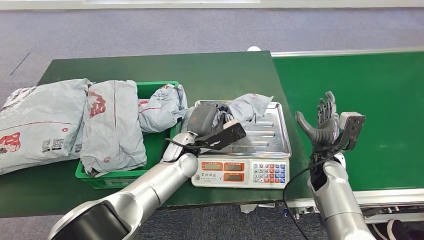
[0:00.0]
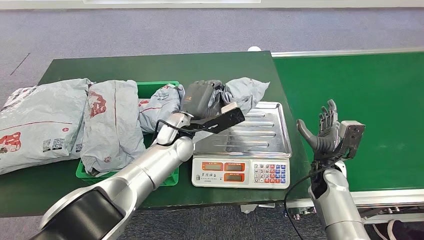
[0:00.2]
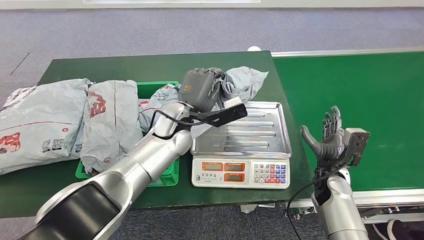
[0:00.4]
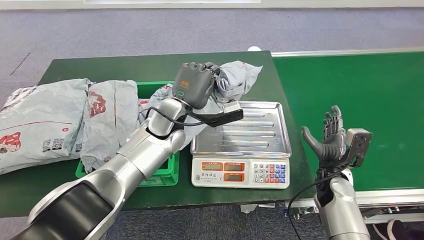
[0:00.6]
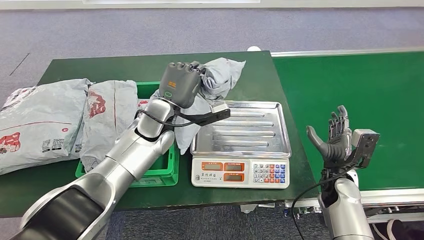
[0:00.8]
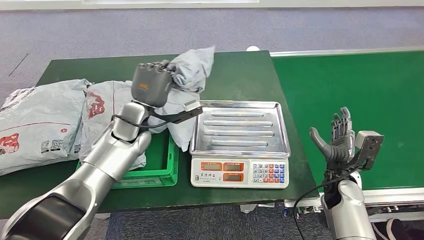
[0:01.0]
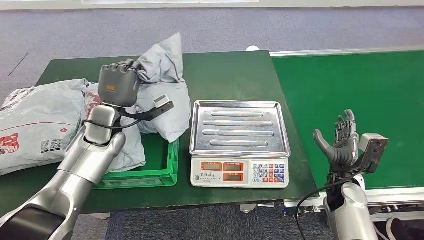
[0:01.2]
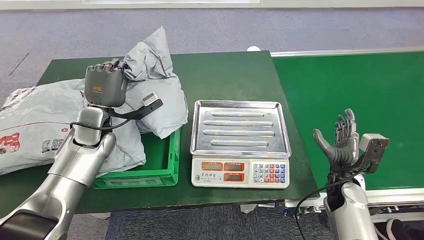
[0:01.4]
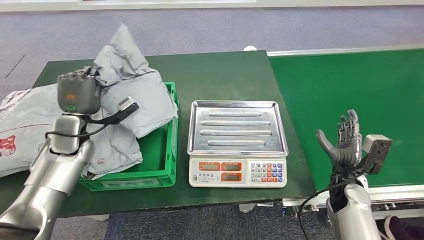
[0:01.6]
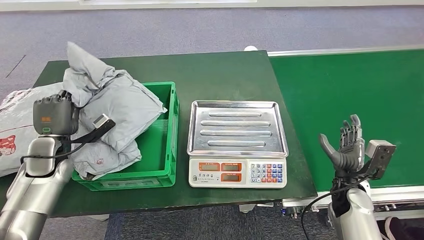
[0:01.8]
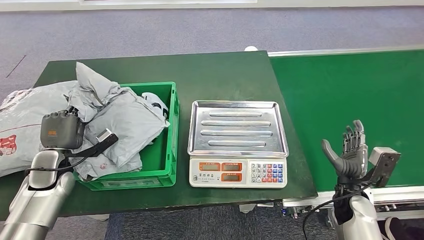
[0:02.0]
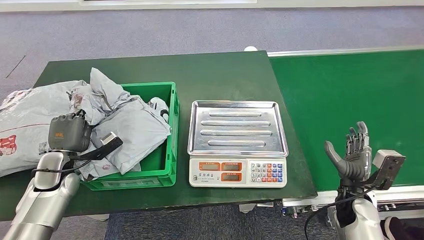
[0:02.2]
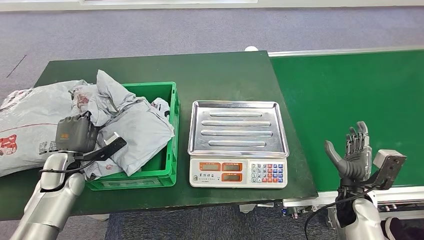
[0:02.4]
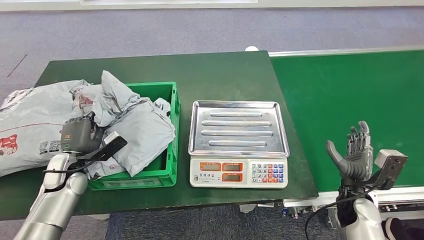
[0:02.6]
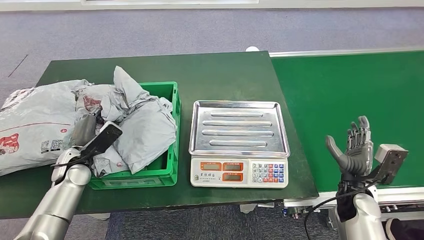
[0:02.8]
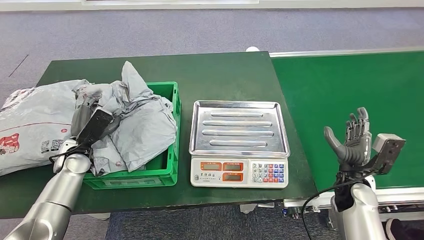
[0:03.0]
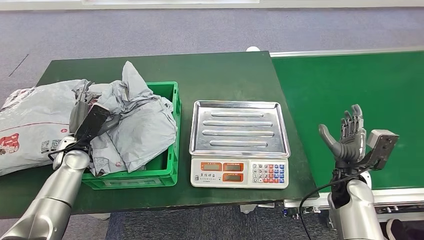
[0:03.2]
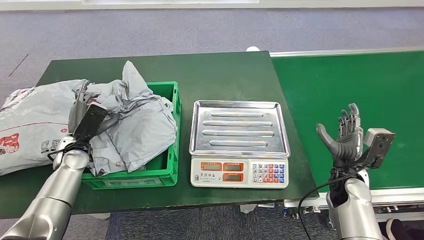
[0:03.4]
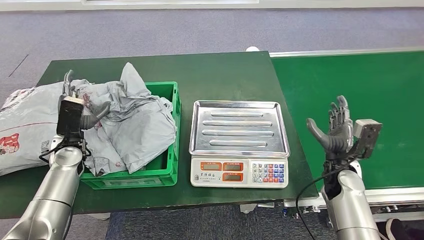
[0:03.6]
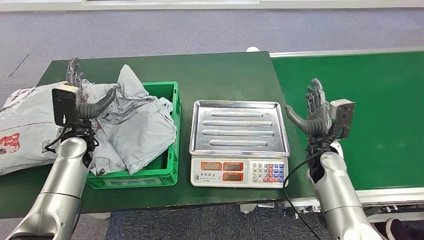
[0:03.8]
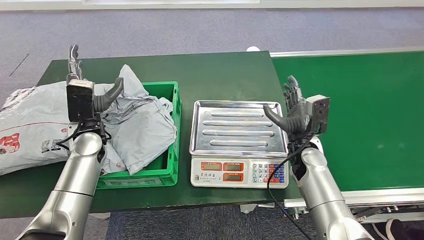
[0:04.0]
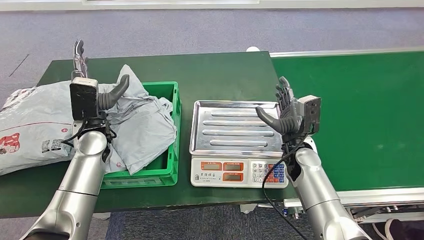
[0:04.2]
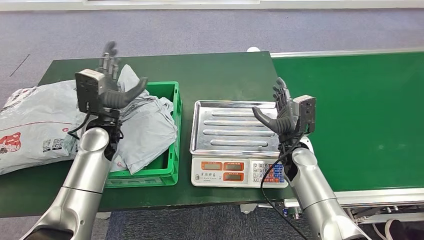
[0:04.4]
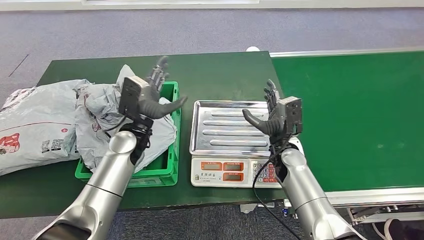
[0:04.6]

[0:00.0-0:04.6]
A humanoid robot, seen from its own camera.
Step, 0:01.2 to 0:04.6: Place the parcel into the delivery box.

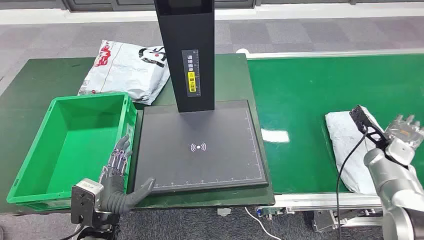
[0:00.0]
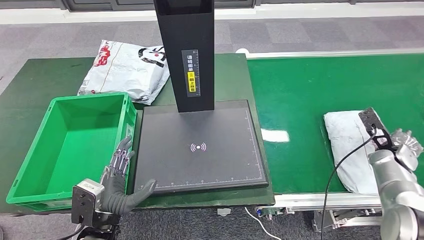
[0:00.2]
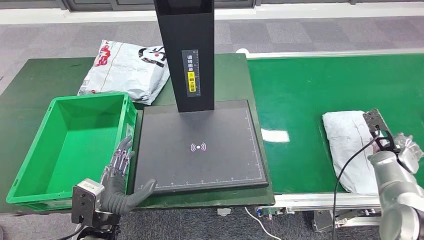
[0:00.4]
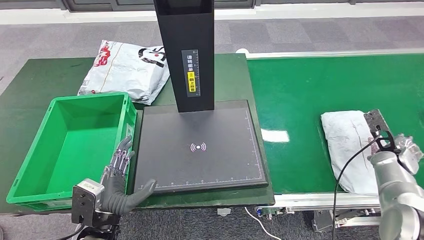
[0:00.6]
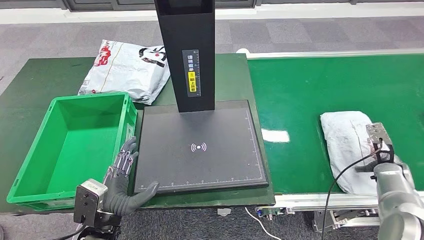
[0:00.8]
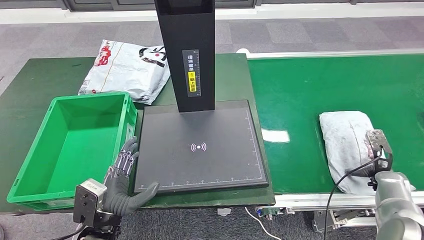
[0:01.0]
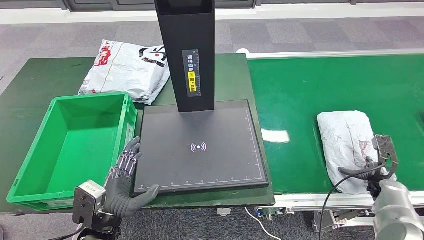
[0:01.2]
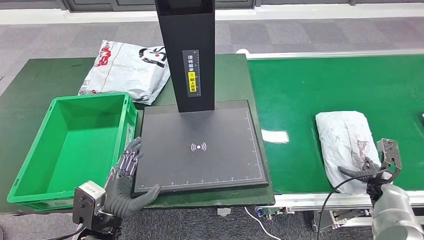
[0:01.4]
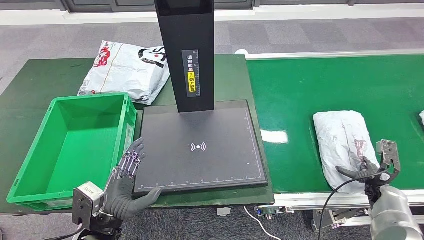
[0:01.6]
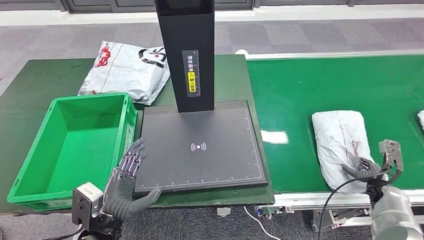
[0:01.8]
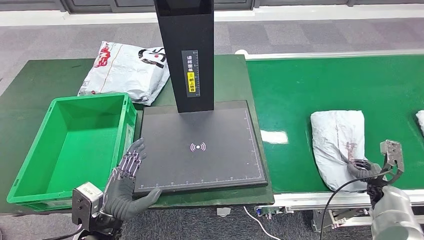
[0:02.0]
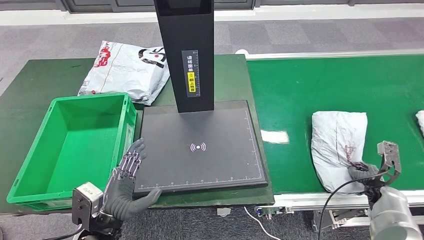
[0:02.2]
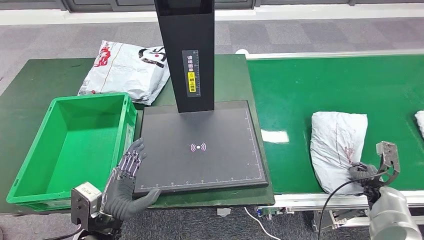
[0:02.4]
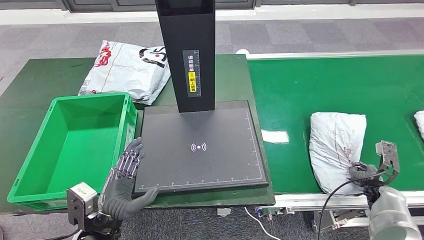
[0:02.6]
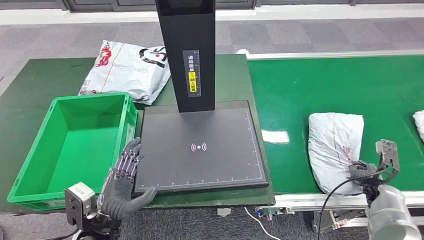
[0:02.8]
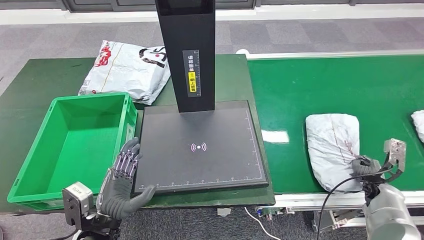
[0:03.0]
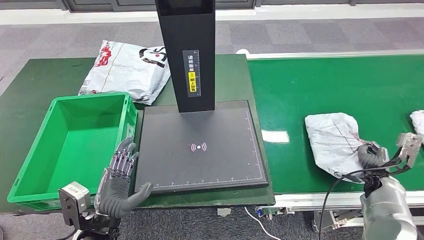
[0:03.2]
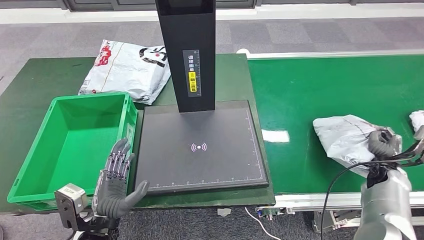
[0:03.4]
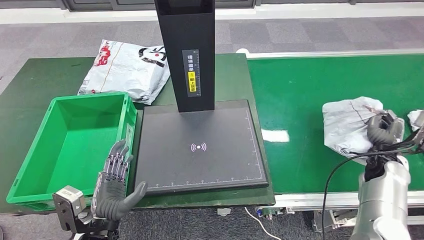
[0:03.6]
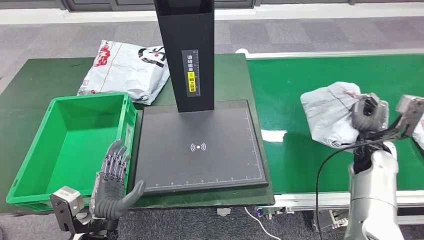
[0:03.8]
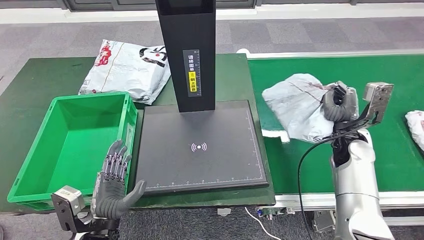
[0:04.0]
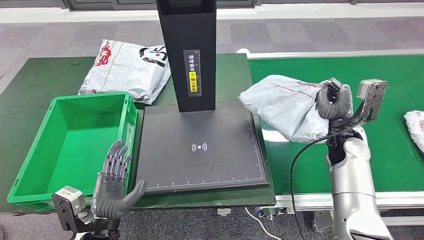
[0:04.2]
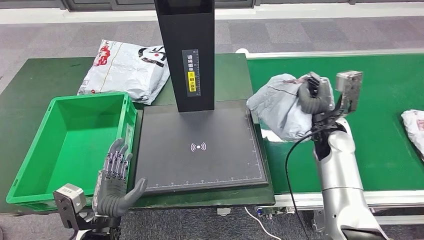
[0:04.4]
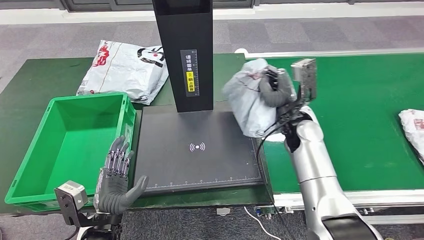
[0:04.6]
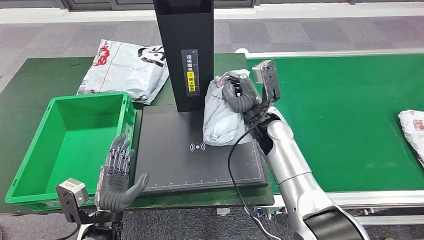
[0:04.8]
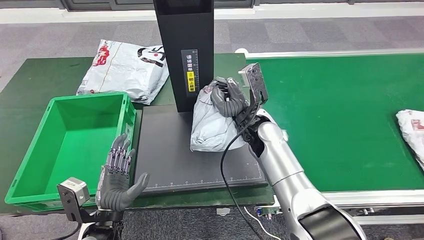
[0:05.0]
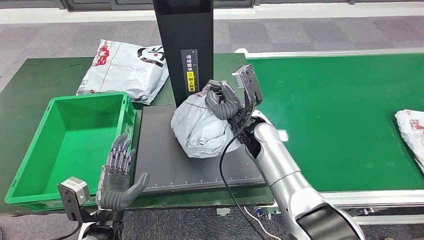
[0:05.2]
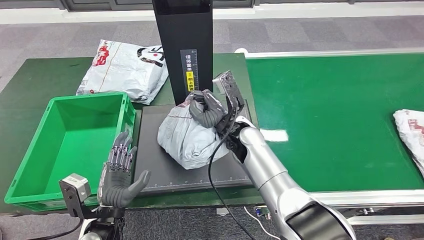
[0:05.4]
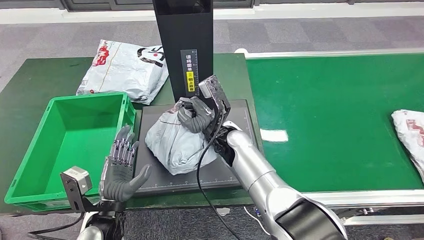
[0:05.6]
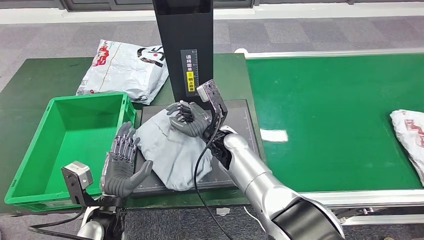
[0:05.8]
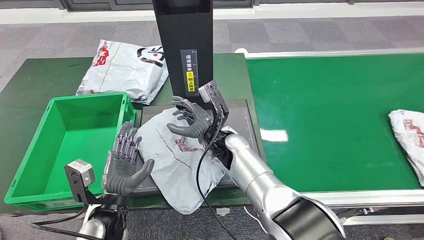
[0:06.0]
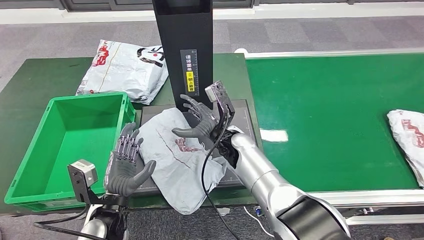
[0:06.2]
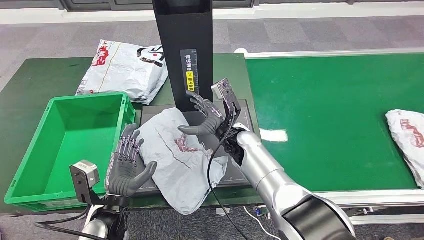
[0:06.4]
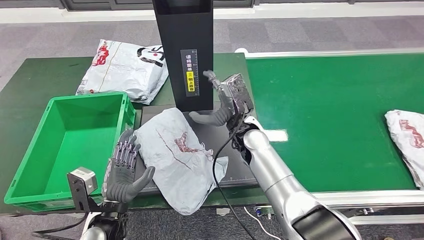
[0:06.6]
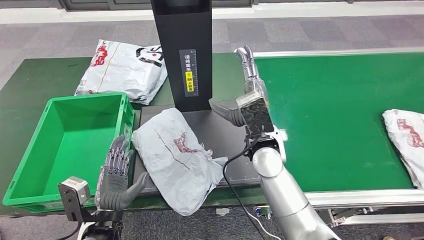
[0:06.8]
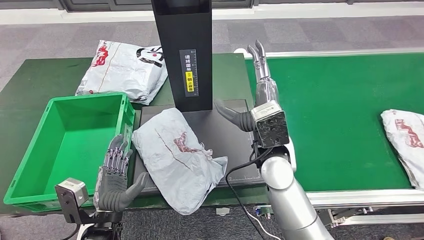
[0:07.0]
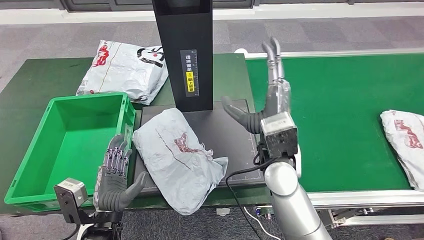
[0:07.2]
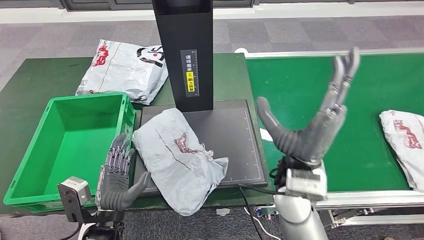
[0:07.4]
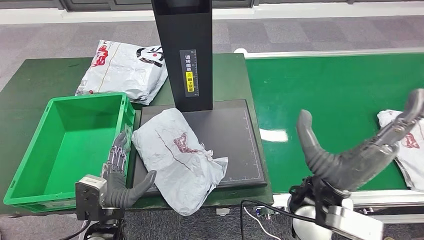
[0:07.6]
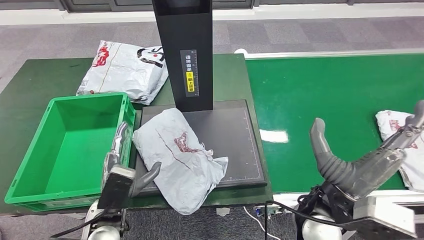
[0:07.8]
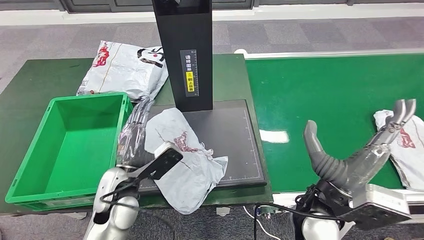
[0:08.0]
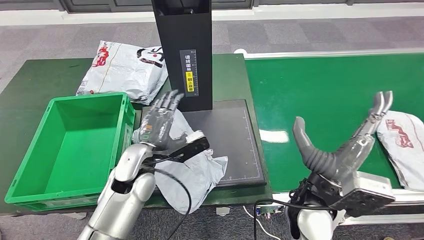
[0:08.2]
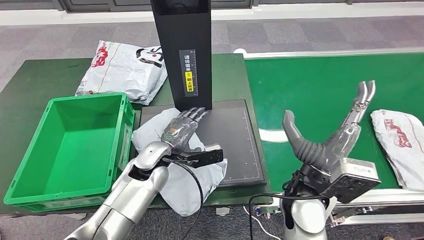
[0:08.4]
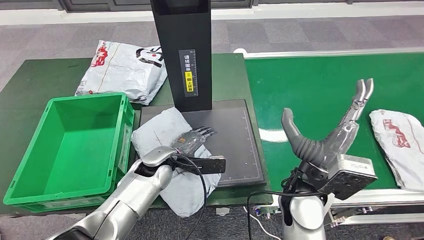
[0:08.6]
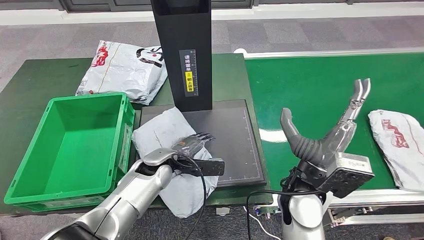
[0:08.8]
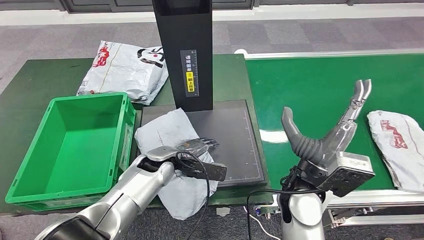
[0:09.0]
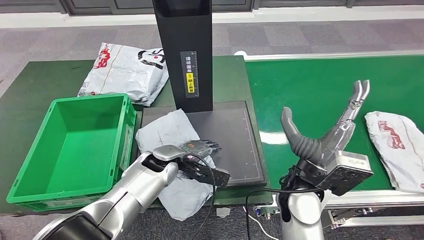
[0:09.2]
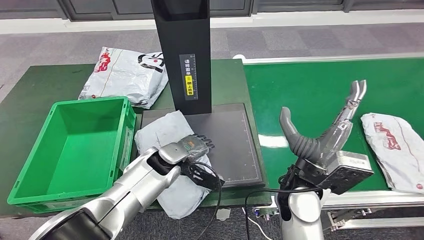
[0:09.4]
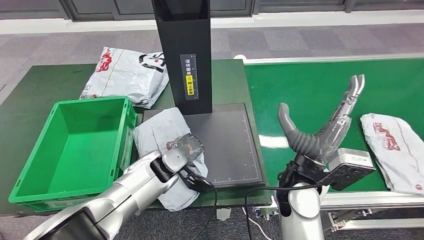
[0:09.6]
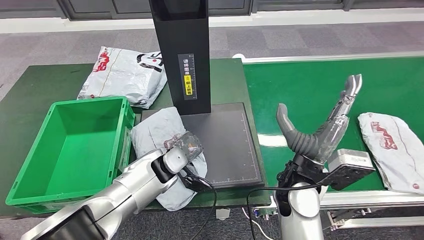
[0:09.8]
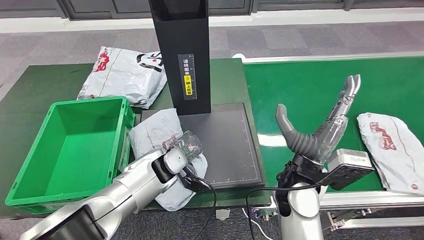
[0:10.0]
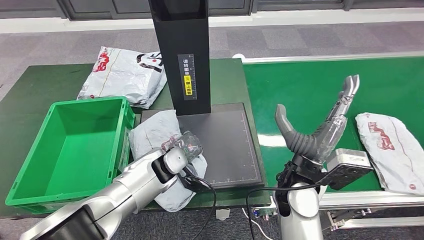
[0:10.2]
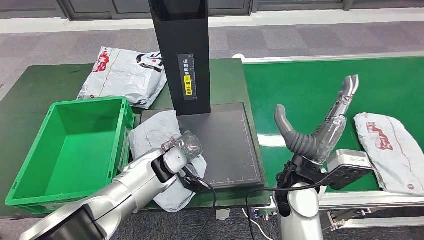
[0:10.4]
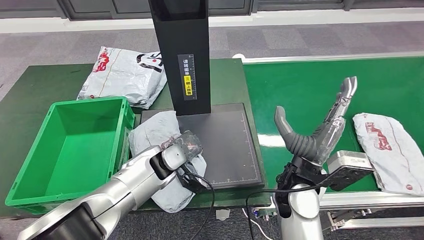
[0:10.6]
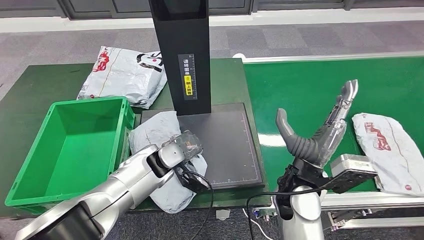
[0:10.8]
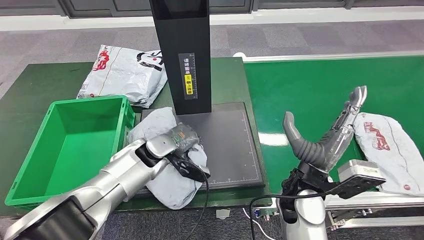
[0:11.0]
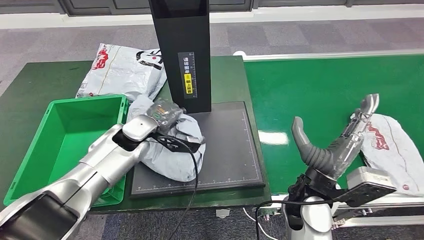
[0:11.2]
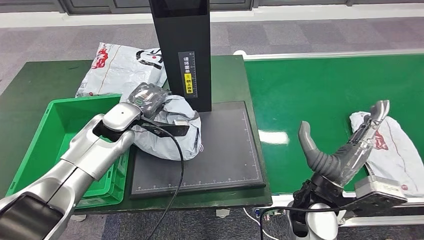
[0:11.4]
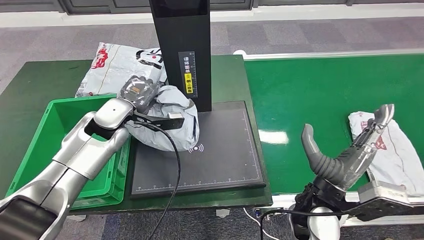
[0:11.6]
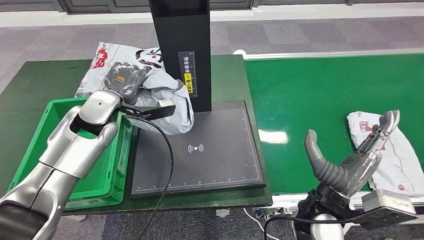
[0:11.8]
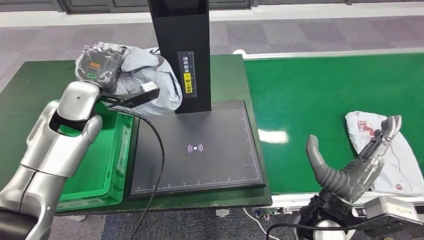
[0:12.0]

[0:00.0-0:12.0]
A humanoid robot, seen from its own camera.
Step, 0:00.0 to 0:03.4: Take the parcel off the conveyor belt.
Step, 0:03.6 to 0:05.6: Place the parcel onto the inbound machine.
0:01.6 to 0:03.0: There are only small adjustments of the hands.
0:06.0 to 0:07.6: The right hand is displaced backward, to the right and upward by roughly 25 cm.
